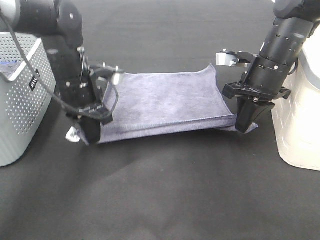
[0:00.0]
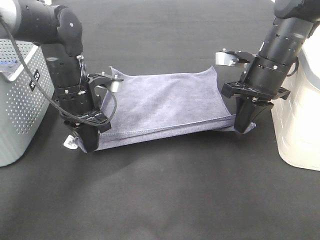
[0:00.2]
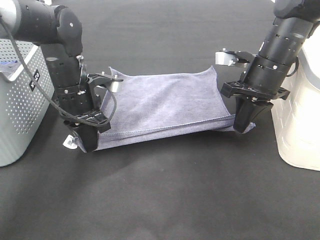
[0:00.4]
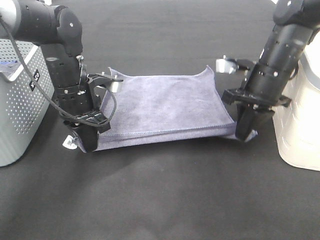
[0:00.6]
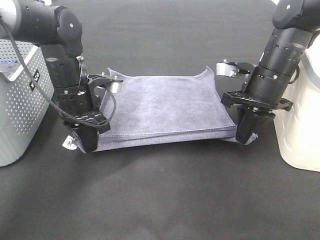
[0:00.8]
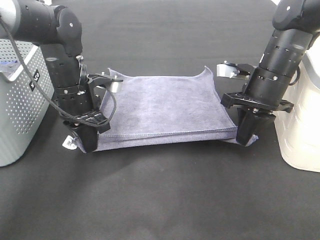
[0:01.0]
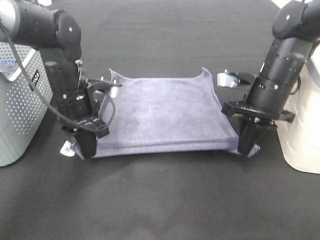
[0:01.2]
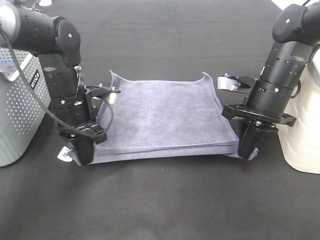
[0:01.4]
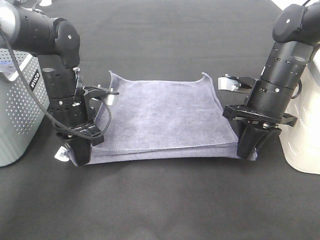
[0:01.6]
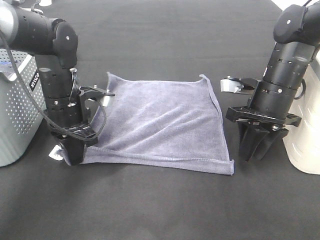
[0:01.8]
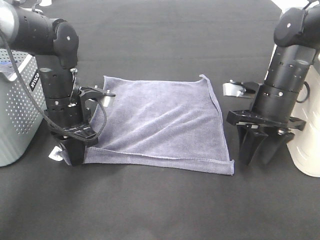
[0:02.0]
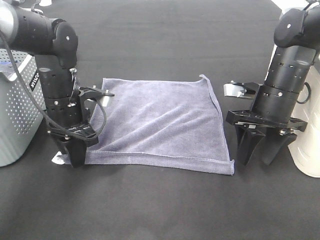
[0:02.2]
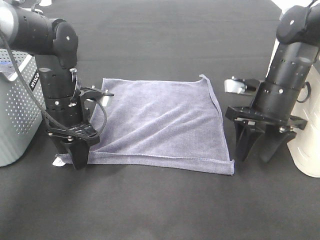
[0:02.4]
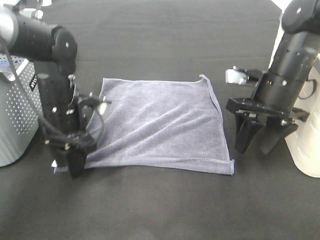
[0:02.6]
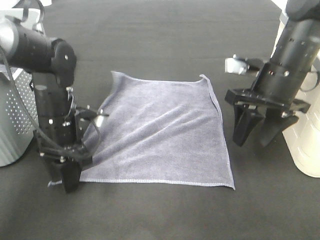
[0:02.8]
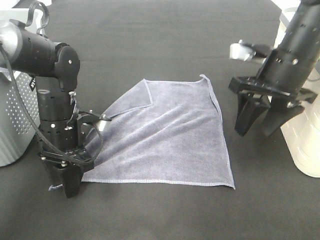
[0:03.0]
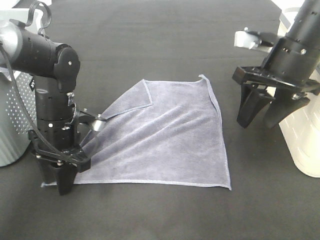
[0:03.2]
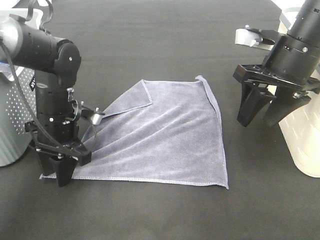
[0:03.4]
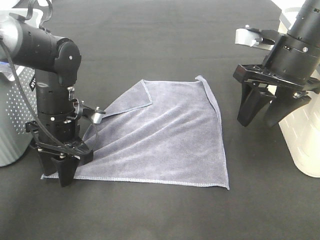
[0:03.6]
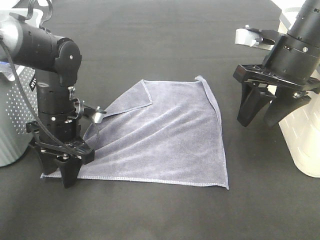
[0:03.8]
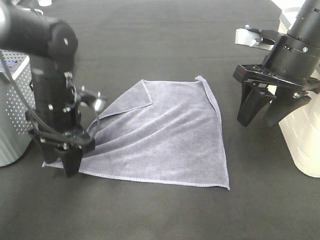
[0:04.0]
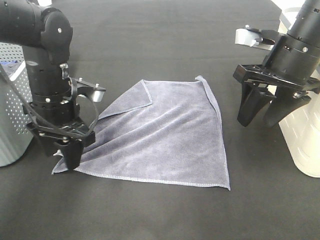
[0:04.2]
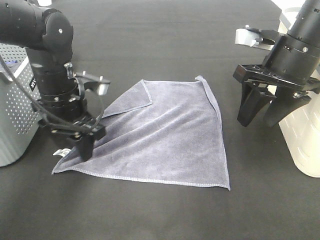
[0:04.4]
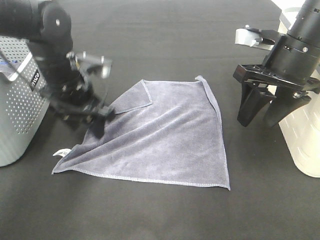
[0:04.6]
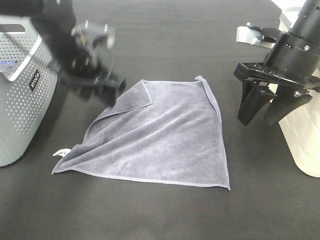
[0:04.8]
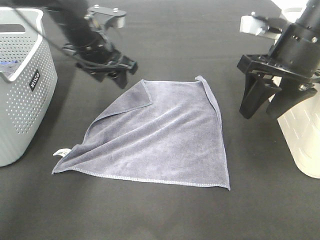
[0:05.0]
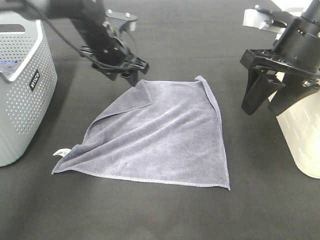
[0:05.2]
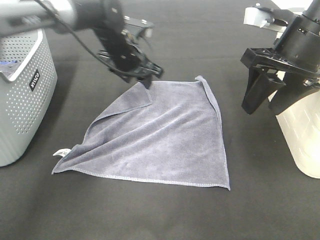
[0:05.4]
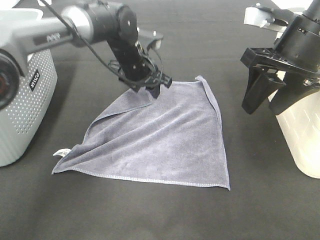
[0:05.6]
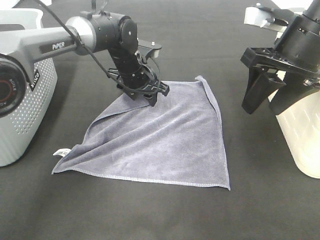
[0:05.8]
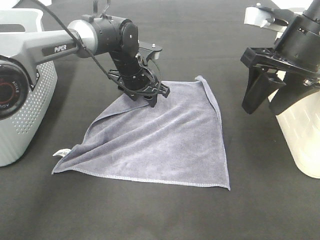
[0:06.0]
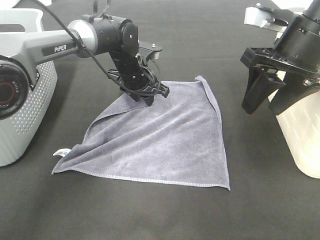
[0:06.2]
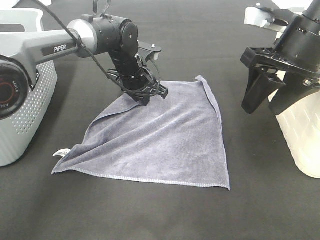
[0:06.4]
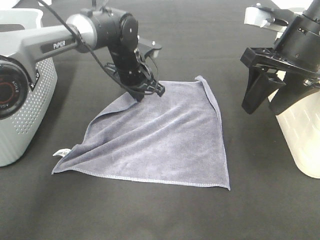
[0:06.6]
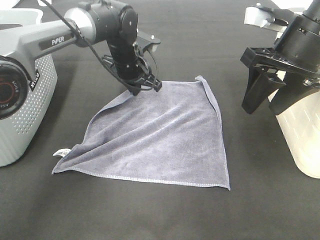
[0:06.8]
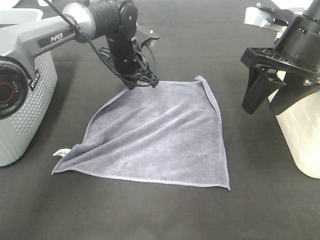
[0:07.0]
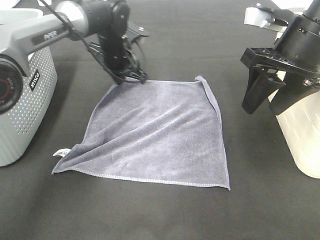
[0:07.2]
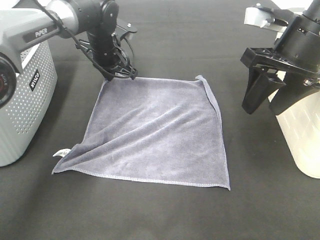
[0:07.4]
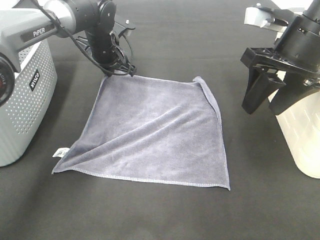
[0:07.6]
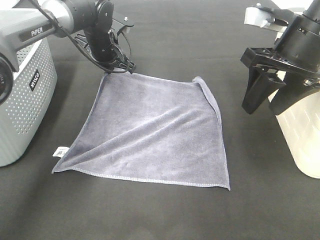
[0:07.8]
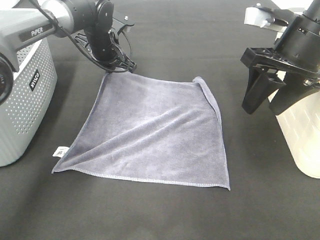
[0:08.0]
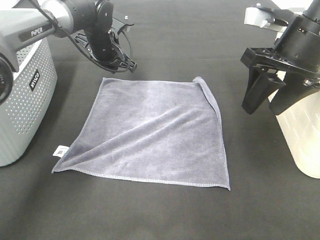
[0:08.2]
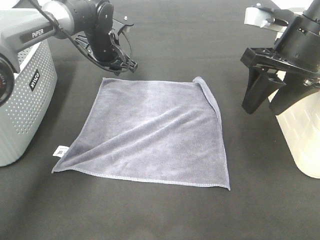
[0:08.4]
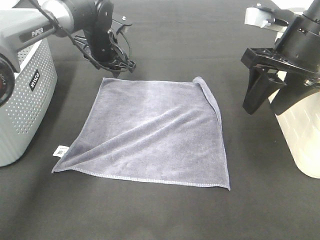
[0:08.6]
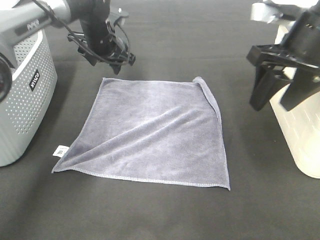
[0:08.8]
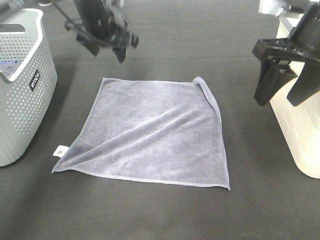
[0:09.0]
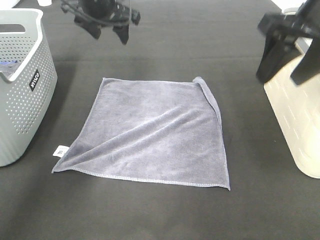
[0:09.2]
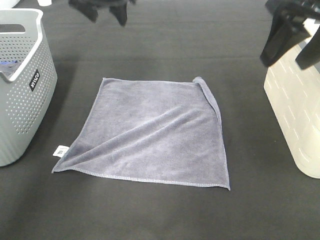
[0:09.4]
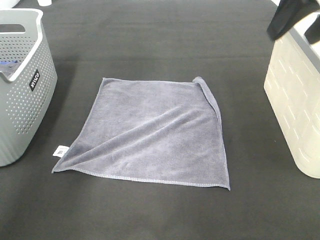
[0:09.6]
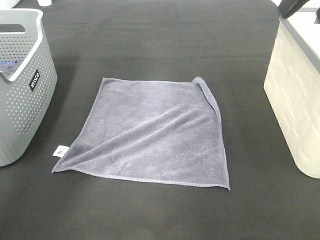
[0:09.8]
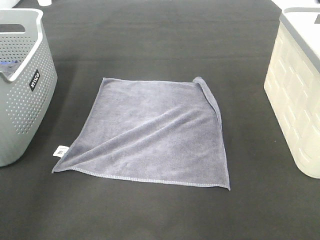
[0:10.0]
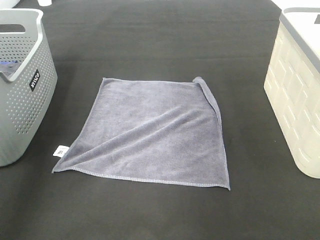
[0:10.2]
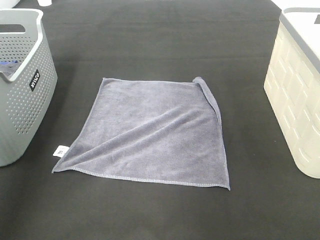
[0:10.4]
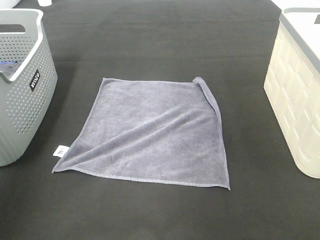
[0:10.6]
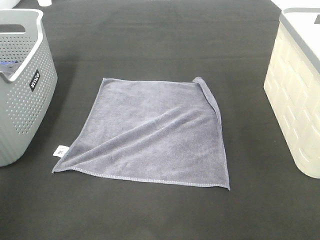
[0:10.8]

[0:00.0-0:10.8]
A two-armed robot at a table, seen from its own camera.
Task of the whole recording: Remove the towel and place it.
Step, 0:00.0 to 0:02.0: Left hand:adjust the gray towel.
0:01.6 to 0:03.0: The right gripper is displaced upward by some 5 cm, and opens up. The left gripper opens up.
0:03.0 to 0:04.6: The left gripper travels upward by some 5 cm.
0:04.6 to 0:06.2: The left gripper is displaced forward, to the right and downward by roughly 15 cm.
0:06.2 to 0:07.8: The left gripper moves to the left, some 5 cm, and closes.
0:07.8 to 0:09.2: The left gripper goes roughly 10 cm upward, and opens its fingers, while the right gripper heads upward, covering about 5 cm.
0:09.2 to 0:10.8: The right gripper shifts about 25 cm backward; the left gripper goes some 40 cm backward and to the left.

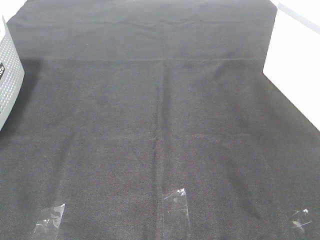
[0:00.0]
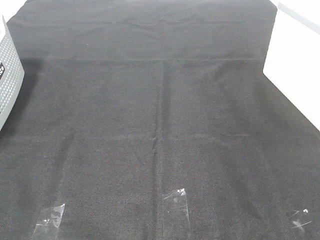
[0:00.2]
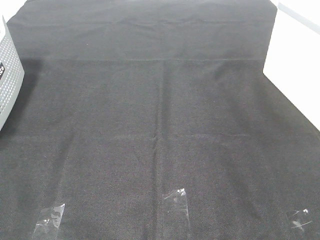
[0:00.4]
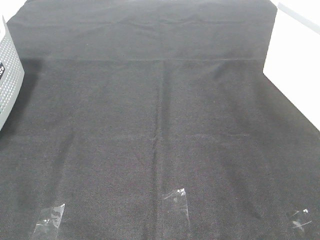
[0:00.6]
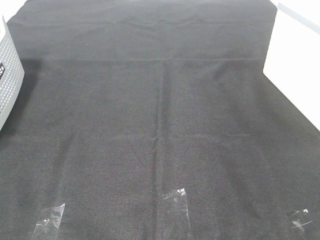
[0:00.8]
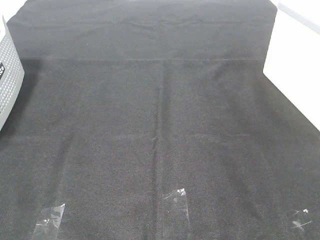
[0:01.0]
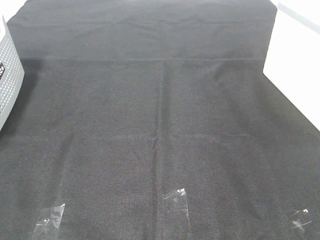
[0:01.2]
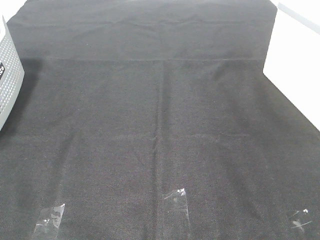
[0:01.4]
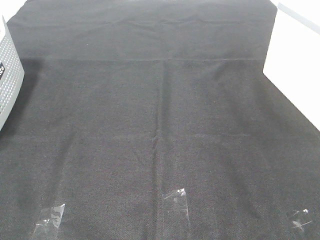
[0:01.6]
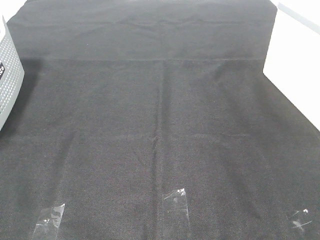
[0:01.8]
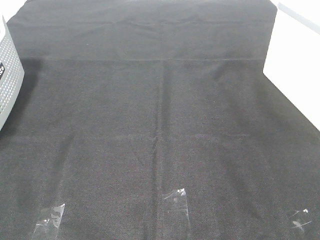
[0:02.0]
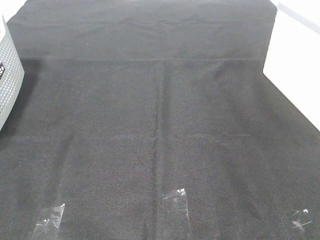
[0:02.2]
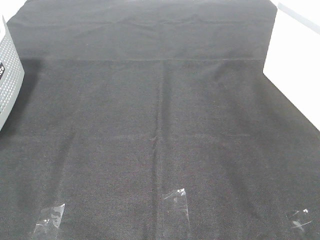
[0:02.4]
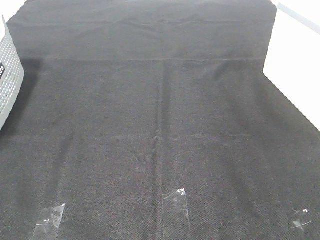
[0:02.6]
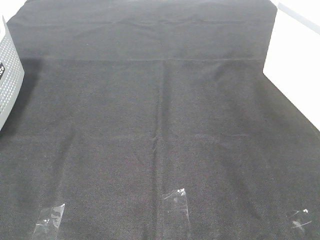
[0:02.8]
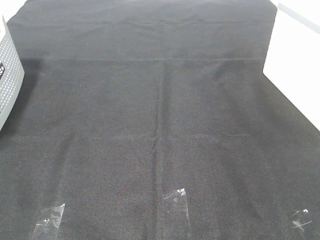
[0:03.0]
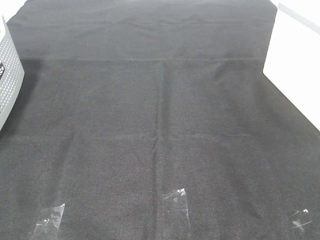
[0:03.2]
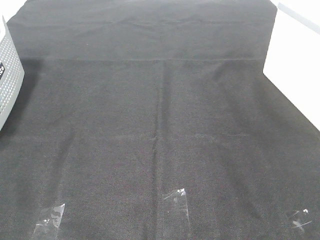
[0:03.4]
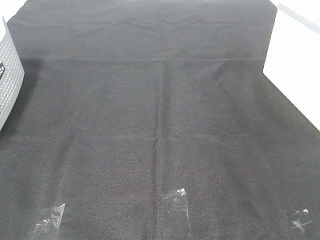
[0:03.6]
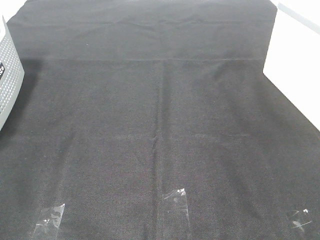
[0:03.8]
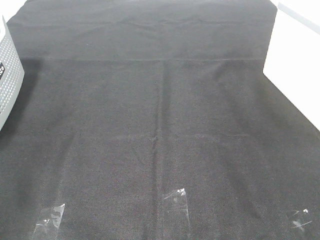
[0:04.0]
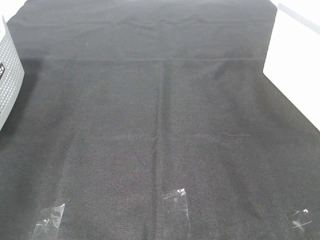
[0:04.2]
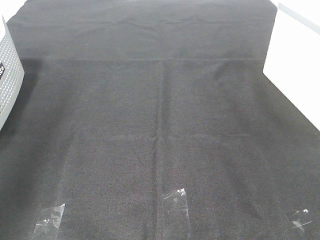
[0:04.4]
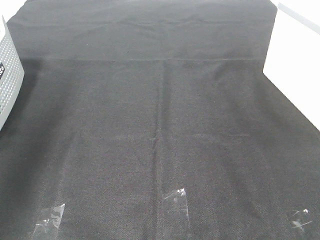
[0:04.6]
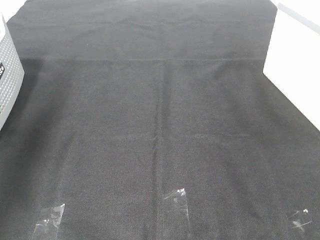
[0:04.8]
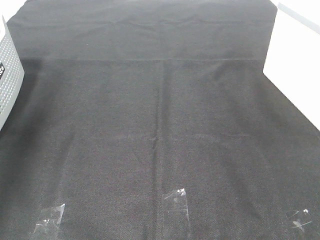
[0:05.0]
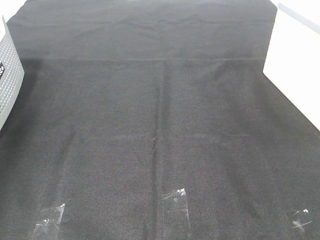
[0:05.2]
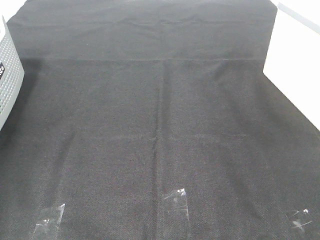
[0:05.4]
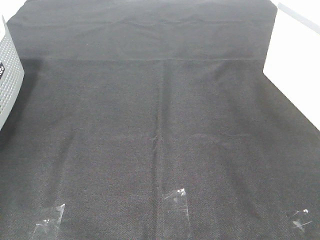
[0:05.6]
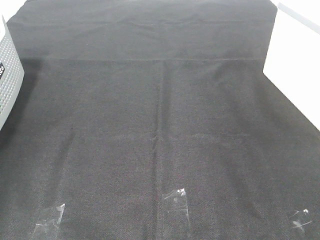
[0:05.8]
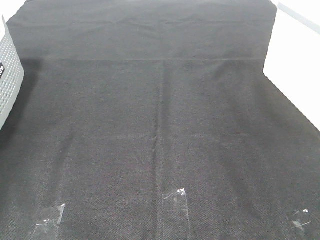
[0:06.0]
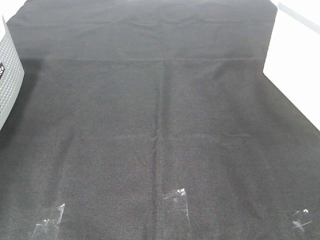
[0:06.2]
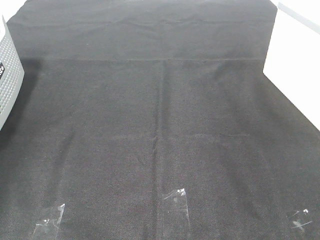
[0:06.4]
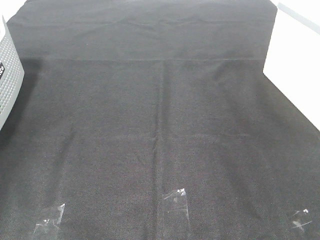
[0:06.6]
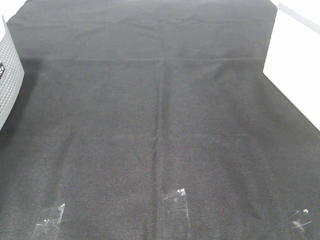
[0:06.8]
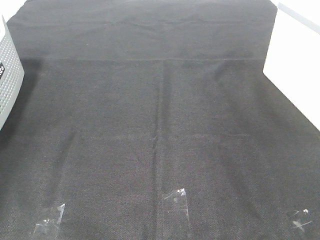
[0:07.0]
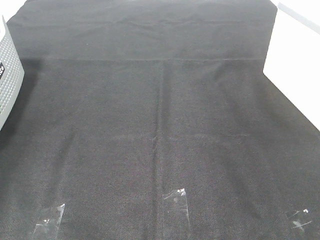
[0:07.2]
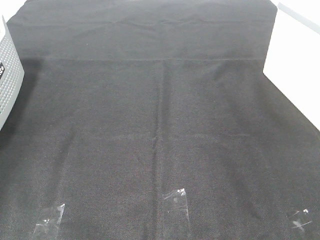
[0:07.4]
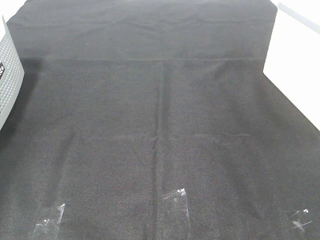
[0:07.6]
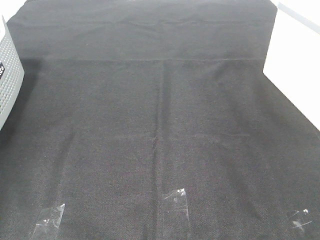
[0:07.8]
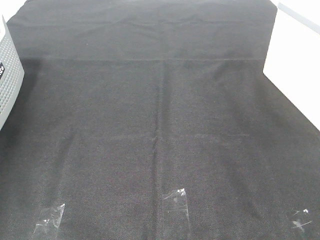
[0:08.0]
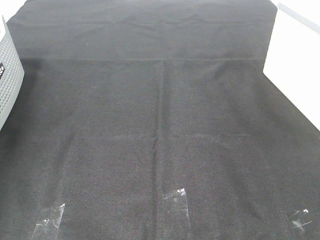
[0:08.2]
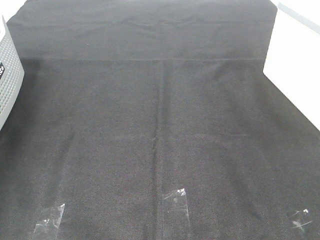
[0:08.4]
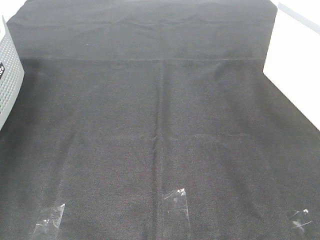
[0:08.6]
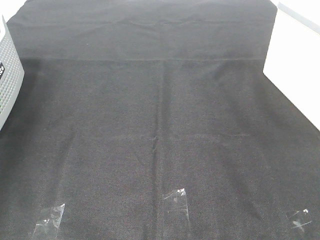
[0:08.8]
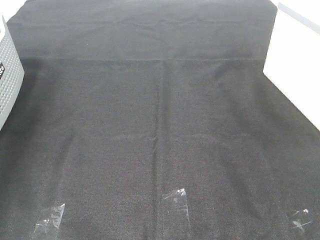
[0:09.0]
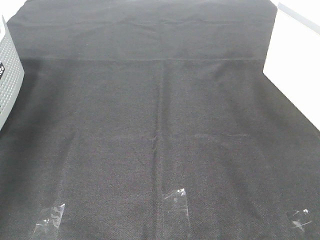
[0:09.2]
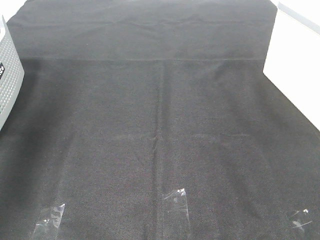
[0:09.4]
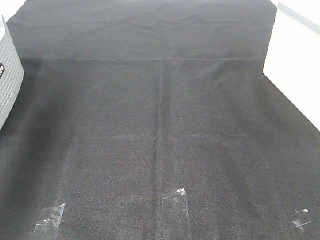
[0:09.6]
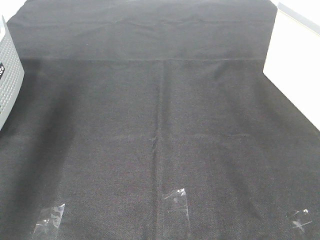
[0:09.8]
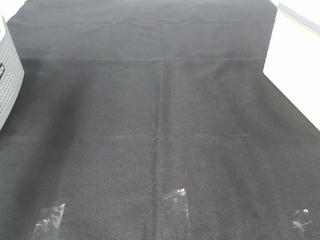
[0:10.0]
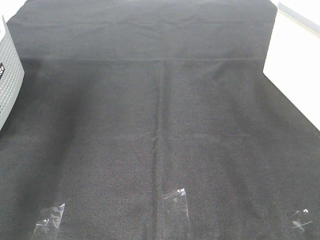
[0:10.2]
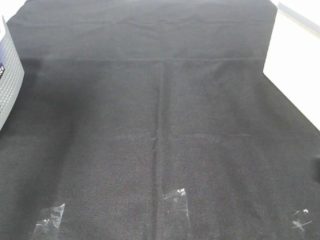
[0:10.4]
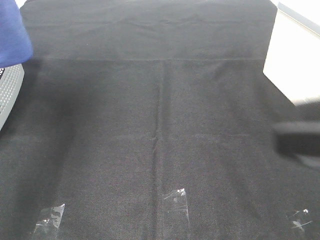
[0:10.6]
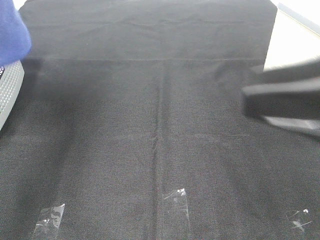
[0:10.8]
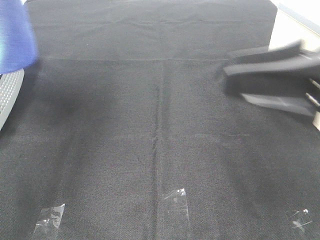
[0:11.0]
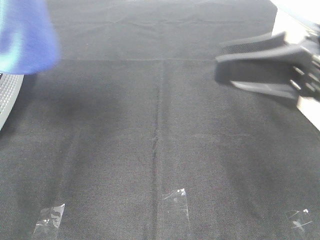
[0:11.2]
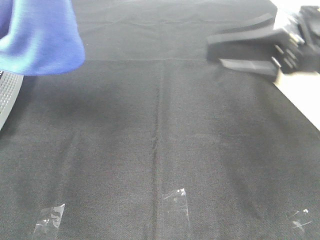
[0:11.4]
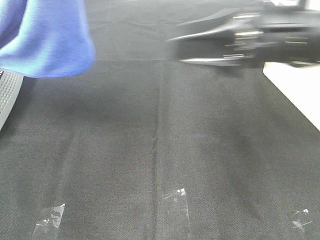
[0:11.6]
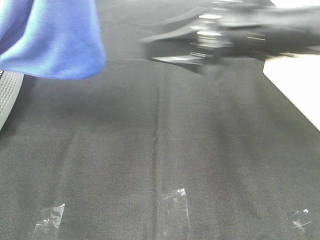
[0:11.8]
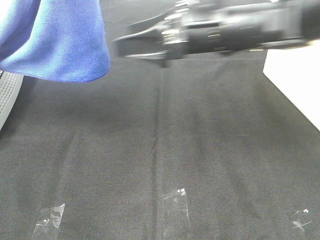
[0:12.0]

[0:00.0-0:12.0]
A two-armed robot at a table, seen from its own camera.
Task of the whole recording: Remove the towel and place it.
0:00.0 to 0:03.0: Neither gripper changes place.
0:03.0 to 0:04.4: The left gripper is displaced forward and upward by about 25 cm.
0:04.4 to 0:06.0: The left gripper shifts approximately 30 cm downward, forward and to the left.
0:09.0 to 0:10.4: The left gripper is displaced to the right and upward by approximately 15 cm.
0:10.4 to 0:12.0: The right gripper travels forward and to the left by approximately 30 cm; the left gripper heads to the right, covering roughly 10 cm.
